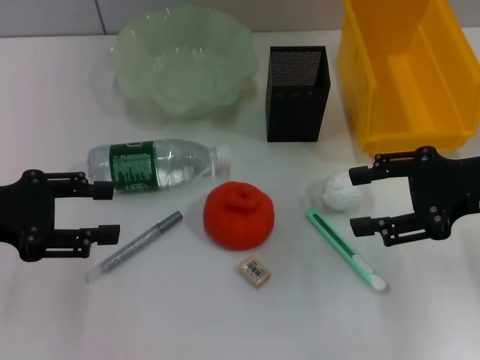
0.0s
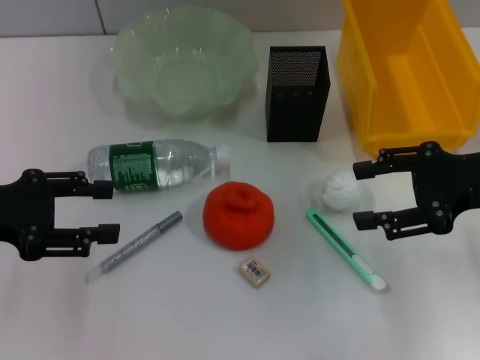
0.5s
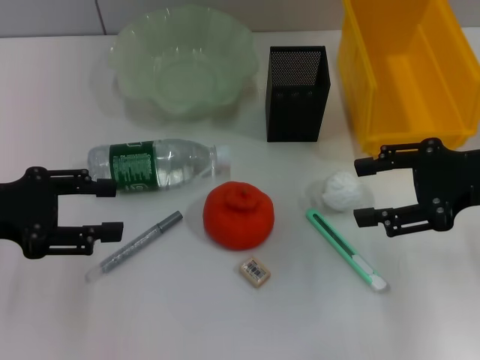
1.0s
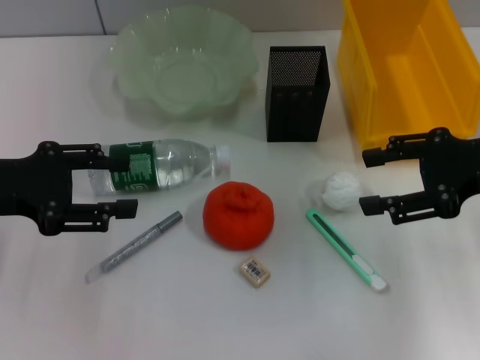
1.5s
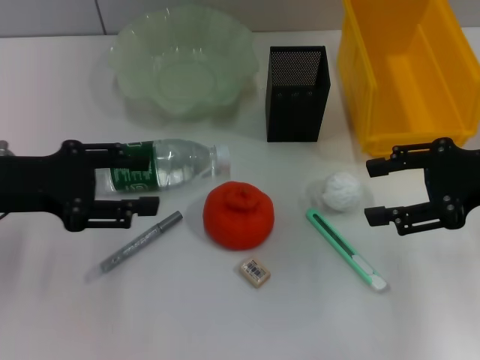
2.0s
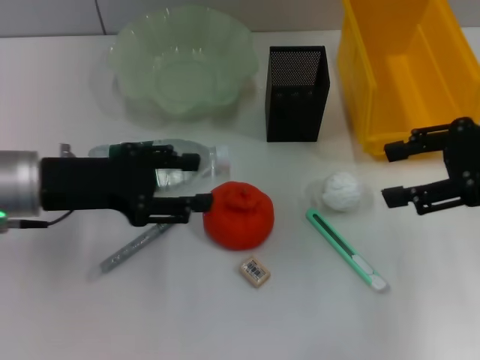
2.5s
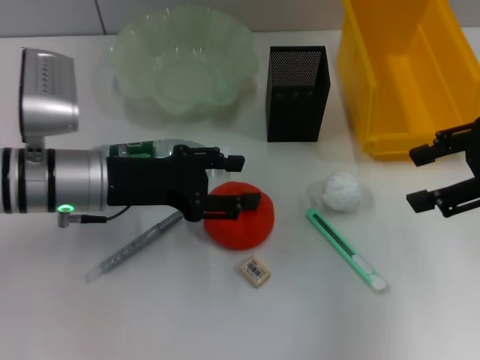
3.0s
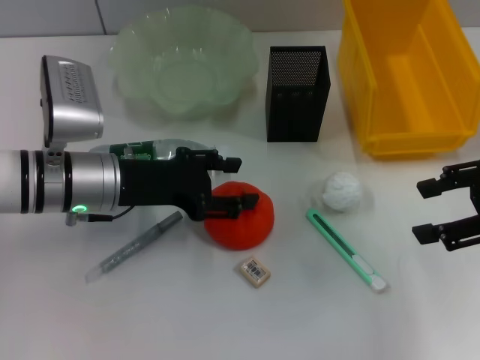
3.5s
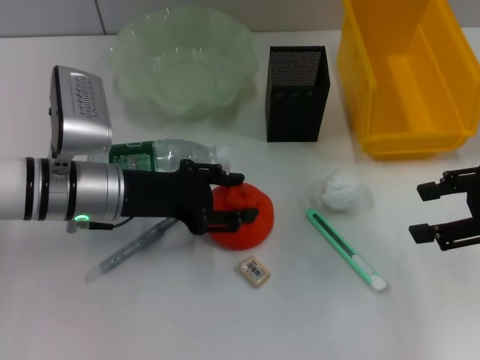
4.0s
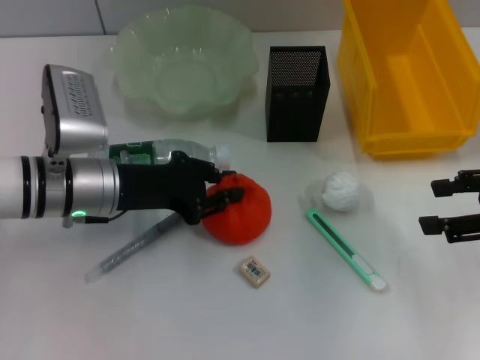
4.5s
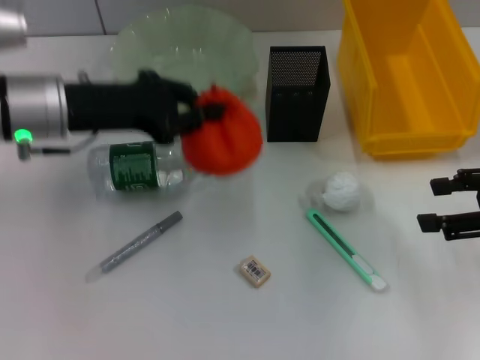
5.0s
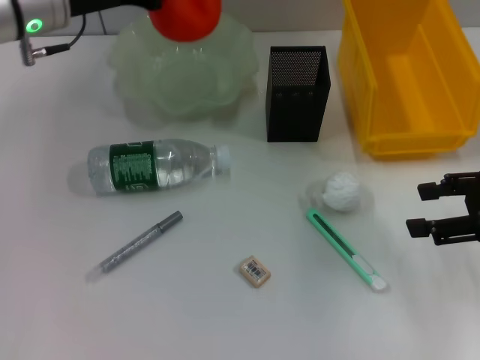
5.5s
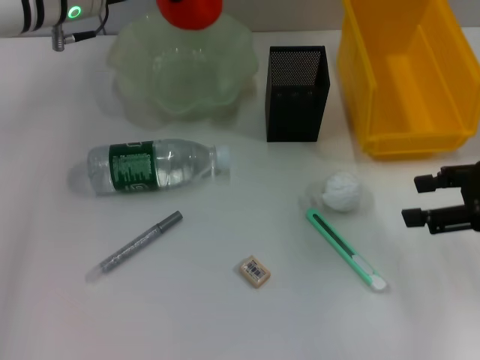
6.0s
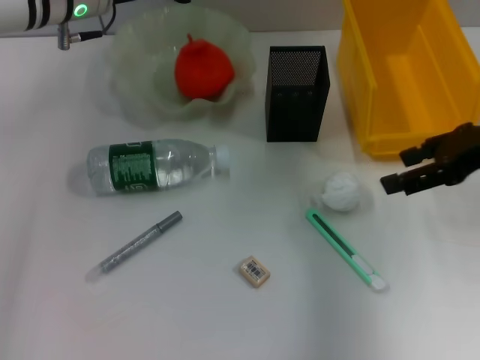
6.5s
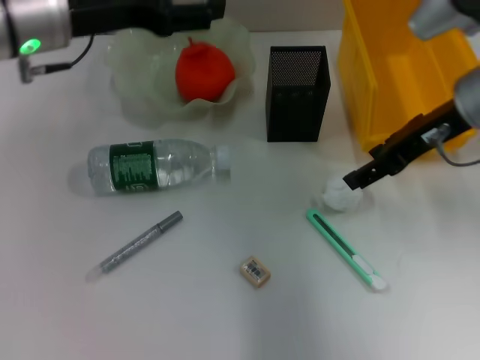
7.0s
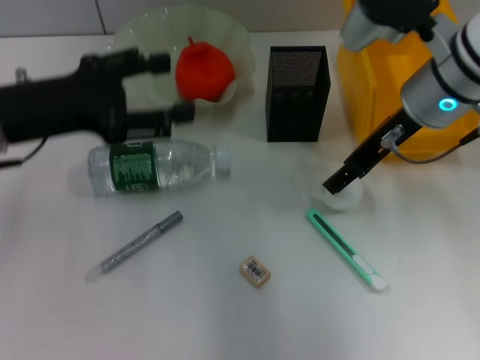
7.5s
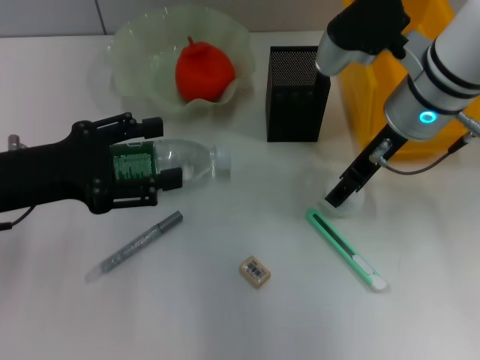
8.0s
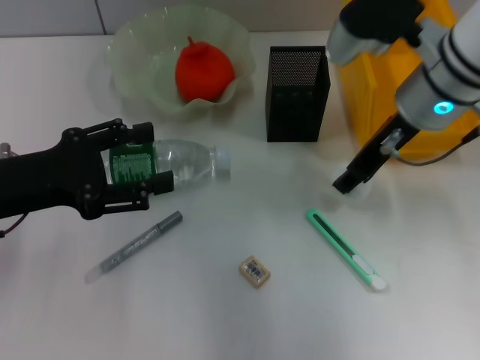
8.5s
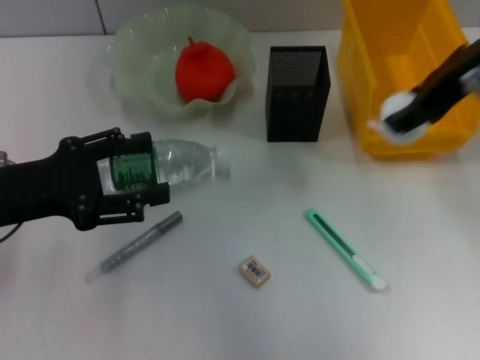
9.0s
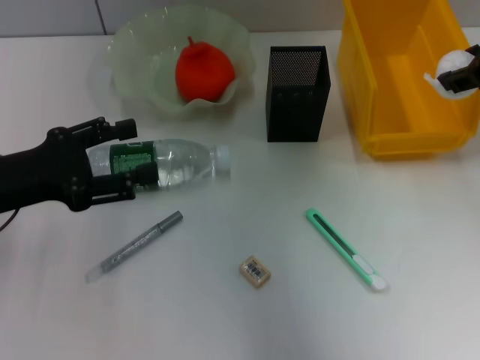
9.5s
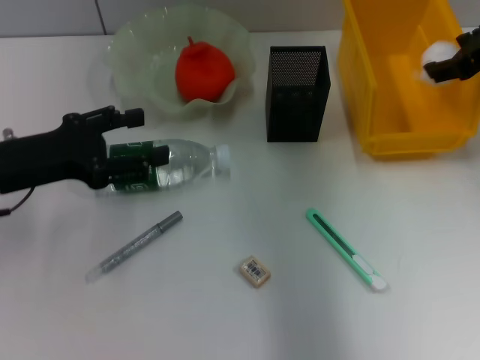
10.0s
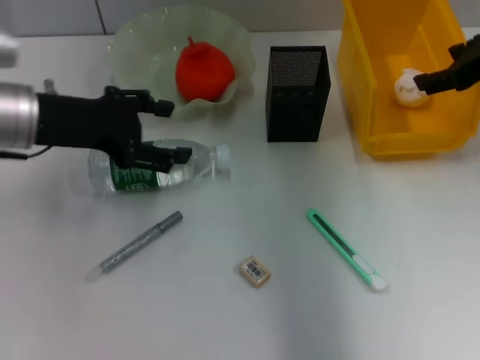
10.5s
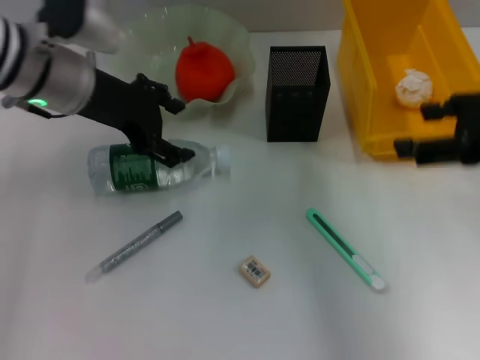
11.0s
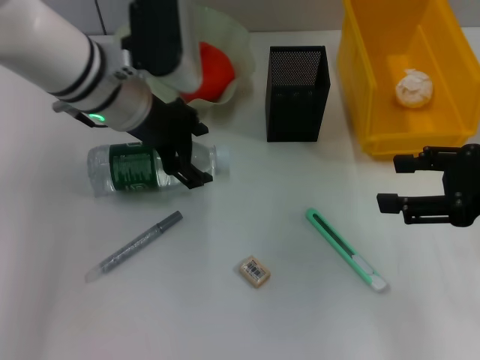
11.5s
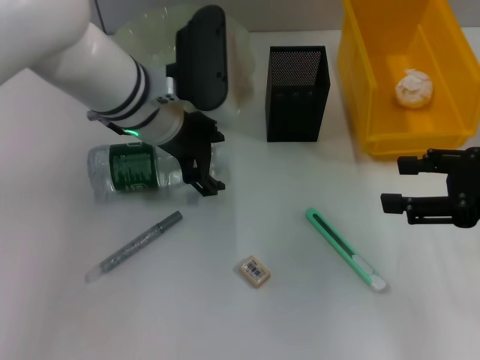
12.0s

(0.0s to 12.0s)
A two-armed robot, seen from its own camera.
Step, 0.0s - 4.0s: Grab the orange with the left hand.
Step, 4.5s - 6.0s: Place the orange into the fruit bowl with the left hand.
Step, 7.0s - 8.0s: Grab the paper ball with the right hand.
Step, 8.5s - 10.0s: Place the paper ball into the trash can with the right hand.
0.0s - 2.0s: The grippers stay close to where they were, moving slightly.
2.0s - 4.0s: The left gripper travels to the right and downward by about 15 cm.
4.0s - 6.0s: The left gripper travels forward and upward by about 15 cm, and closes up.
6.0s - 8.0s: The left gripper travels backward and to the left by roughly 20 cm, and opens, while the right gripper shifts roughly 20 cm to the left and forward.
8.0s - 10.0s: The right gripper shifts roughly 10 cm to the right.
10.0s - 12.0s: The right gripper goes some 15 cm backward, while the left gripper heads to the right and forward, covering some 20 cm.

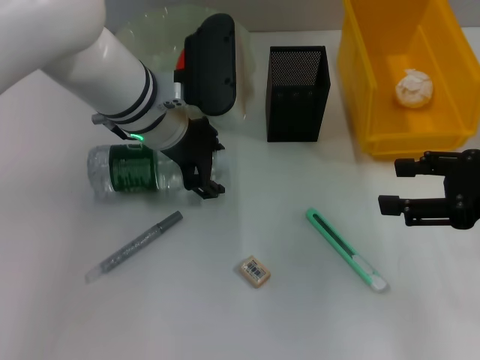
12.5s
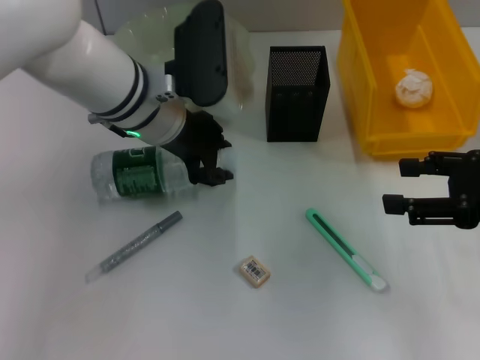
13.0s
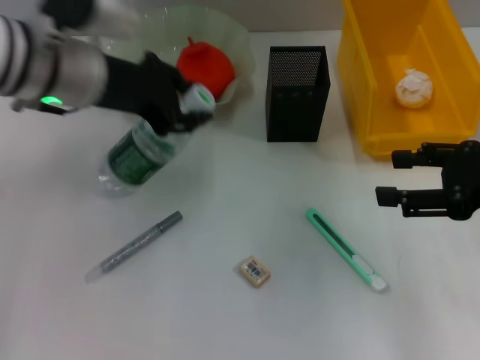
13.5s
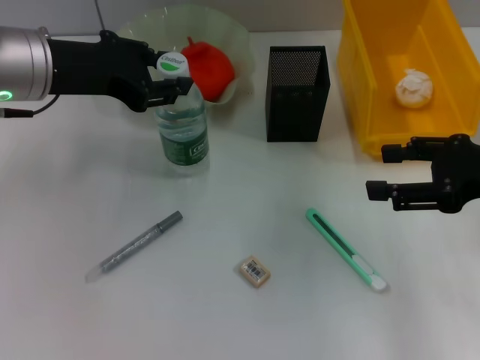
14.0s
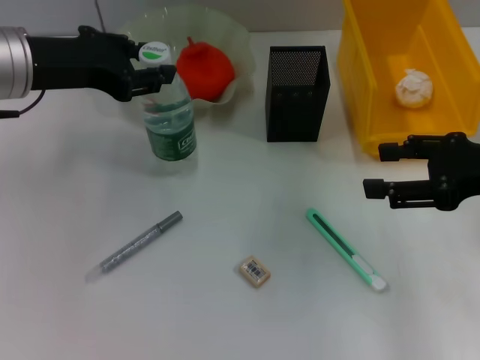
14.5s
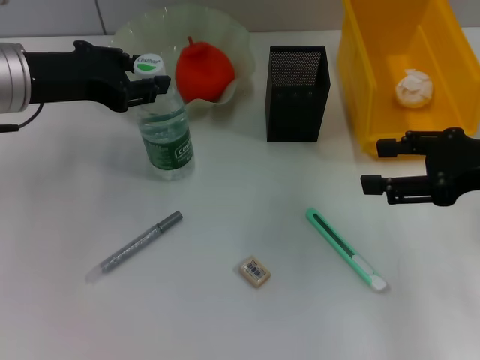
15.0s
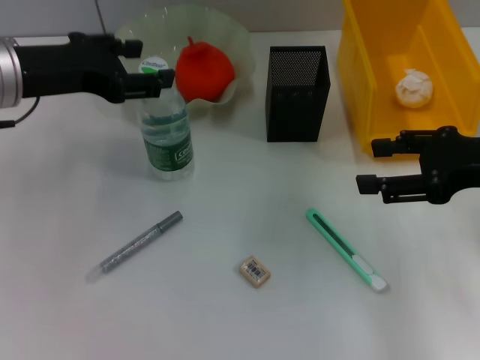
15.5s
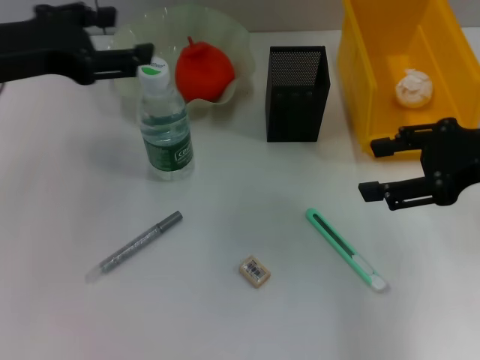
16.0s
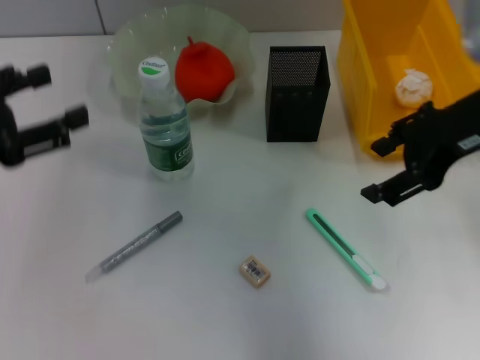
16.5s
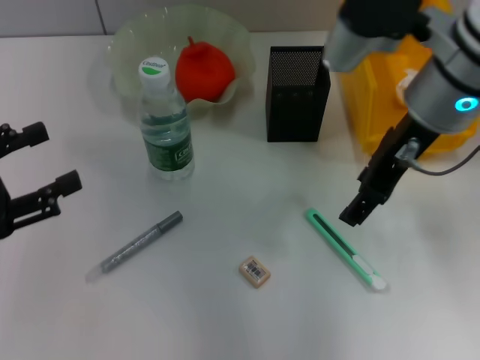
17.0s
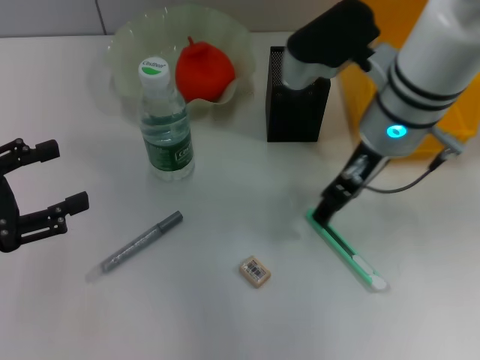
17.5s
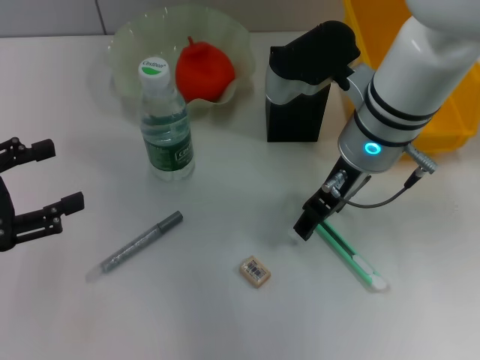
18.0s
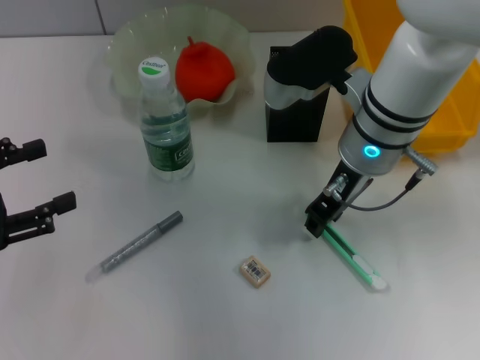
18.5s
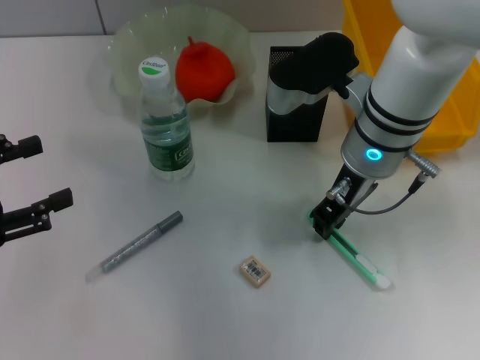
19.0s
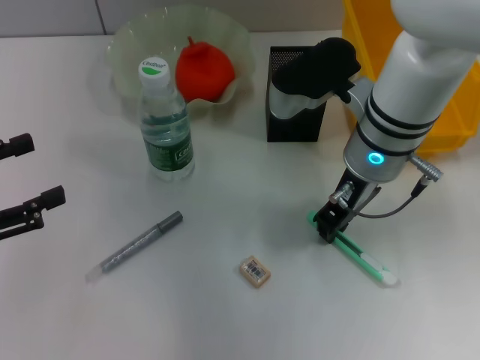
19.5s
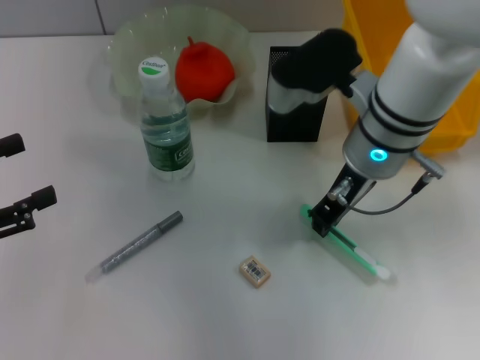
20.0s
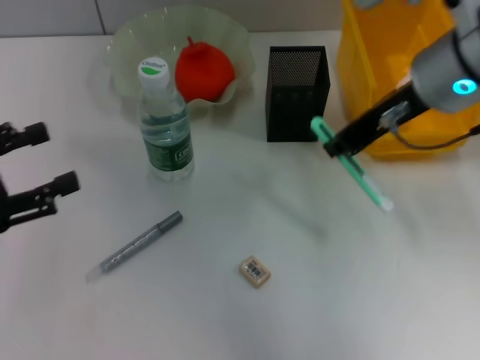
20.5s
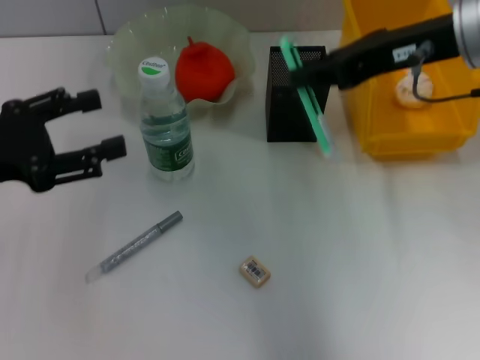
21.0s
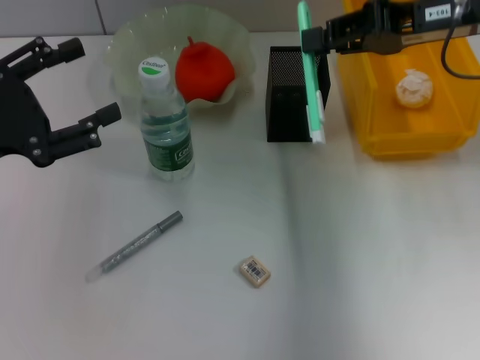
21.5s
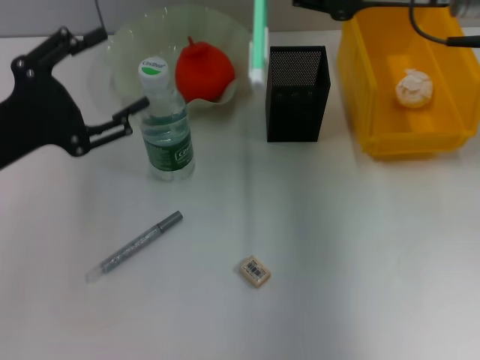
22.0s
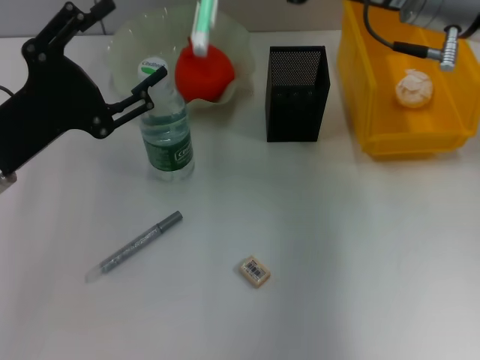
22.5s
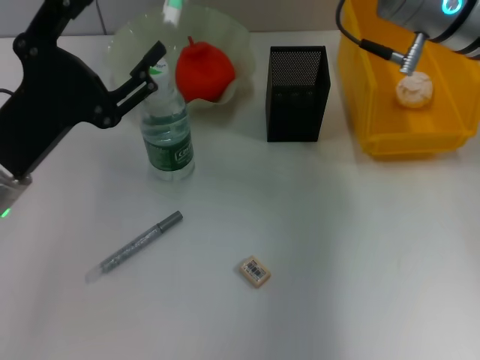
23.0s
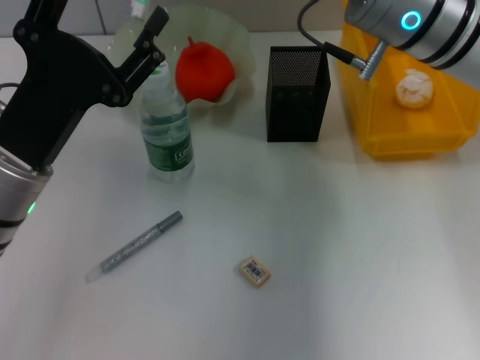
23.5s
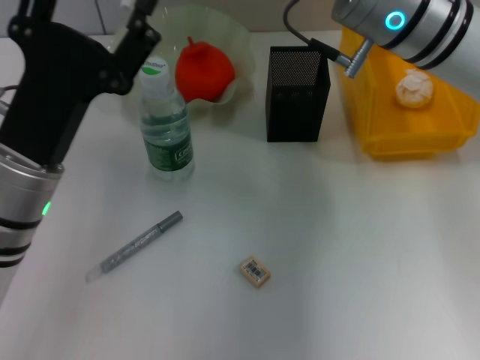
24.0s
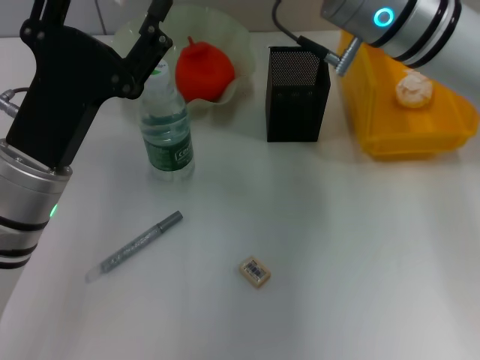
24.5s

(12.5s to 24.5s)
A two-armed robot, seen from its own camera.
Step, 13.0s - 15.0s: Place the water bottle on the table with the left hand.
12.5s - 14.5s: The left gripper moves to the left and upward, roughly 15 cm, and closes its fingers.
14.5s - 16.5s: The left gripper travels backward and to the left by some 15 cm, and opens up. The right gripper shifts some 10 cm to the left and upward.
16.5s - 18.5s: The right gripper is displaced to the left and downward by about 15 cm, while the left gripper ends up some 5 cm from where it was.
18.5s - 20.5s: The right gripper heads upward and to the right, covering roughly 10 cm, and closes its fingers.
20.5s - 22.5s: The left gripper shifts some 10 cm to the right and forward.
22.5s - 24.5s: The right gripper shifts some 5 cm to the left; the left gripper shifts about 5 cm to the right.

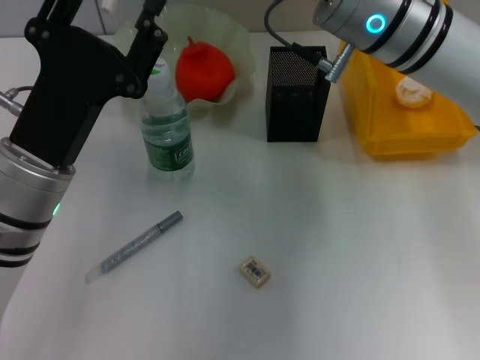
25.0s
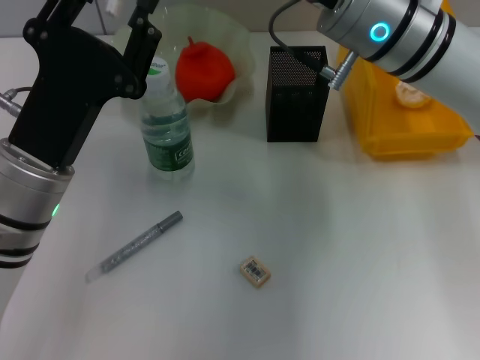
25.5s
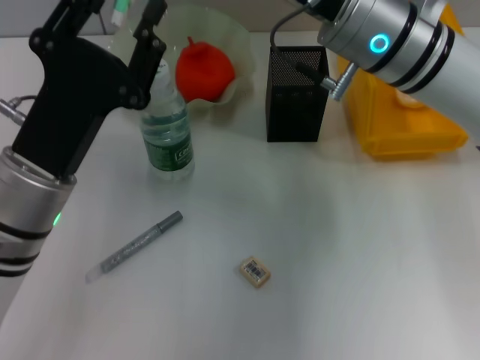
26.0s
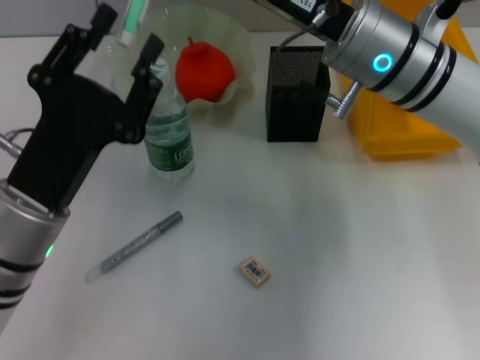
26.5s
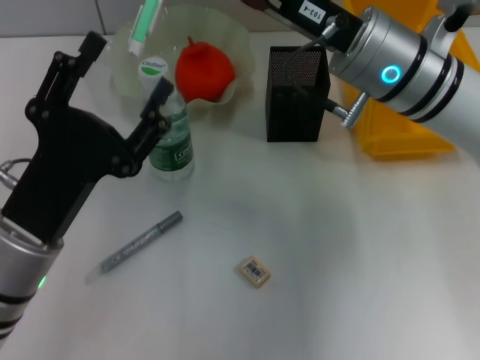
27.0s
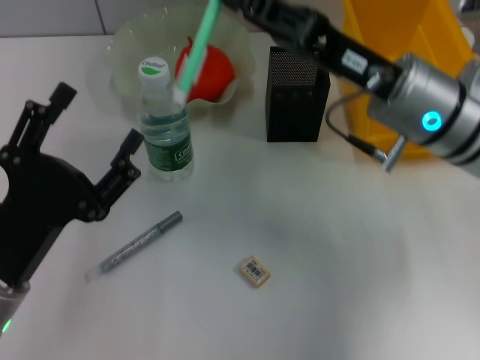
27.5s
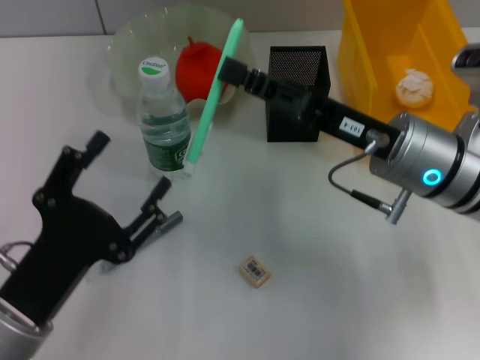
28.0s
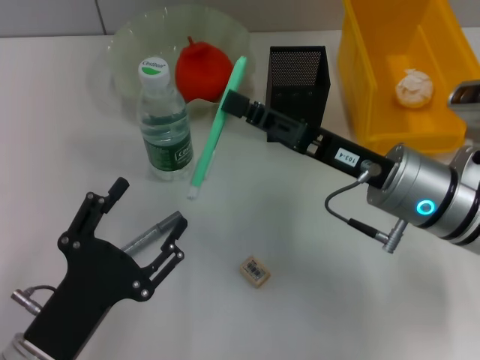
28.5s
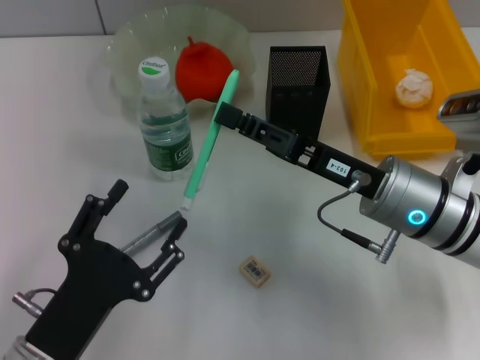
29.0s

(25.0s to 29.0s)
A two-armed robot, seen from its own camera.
25.0s - 27.0s: The left gripper shifts by about 5 cm.
27.0s - 29.0s: The right gripper goes approximately 10 cm downward and backward, while the left gripper is displaced backward and downward by roughly 10 cm.
